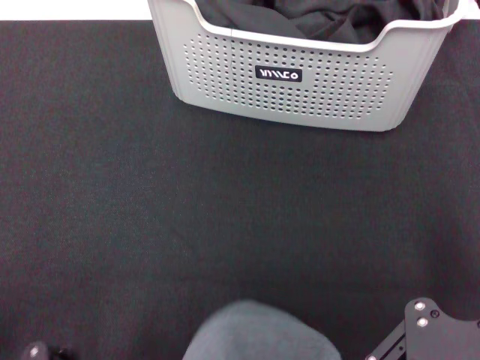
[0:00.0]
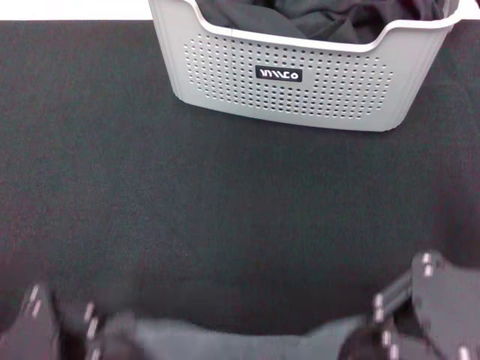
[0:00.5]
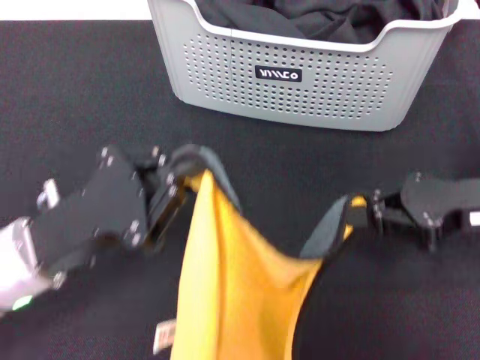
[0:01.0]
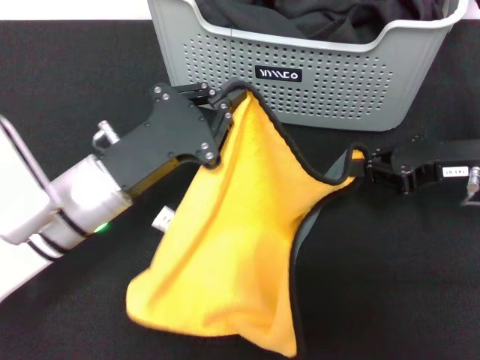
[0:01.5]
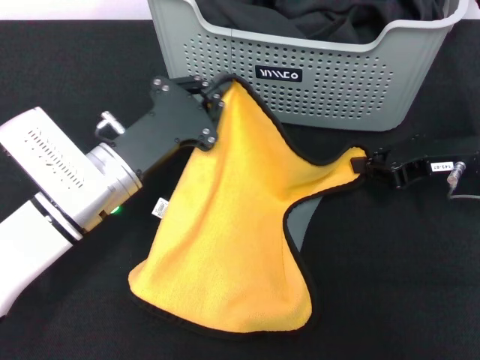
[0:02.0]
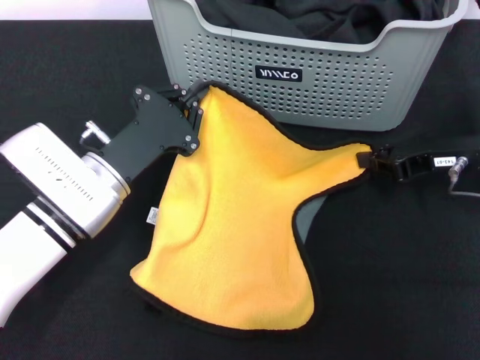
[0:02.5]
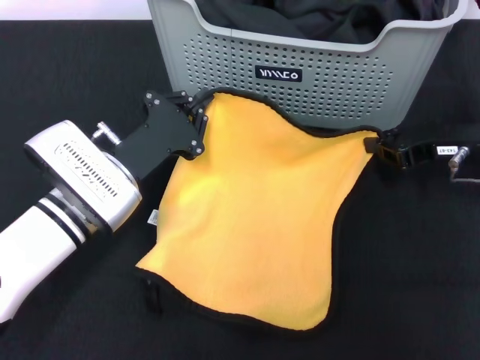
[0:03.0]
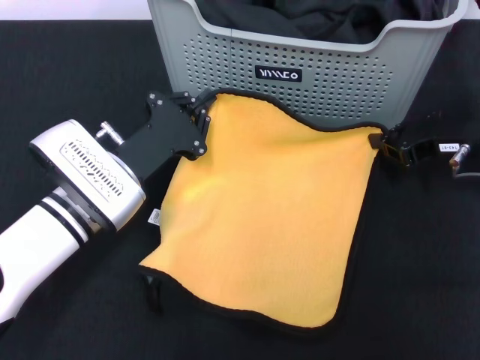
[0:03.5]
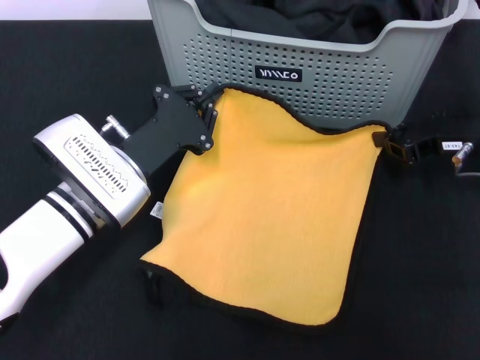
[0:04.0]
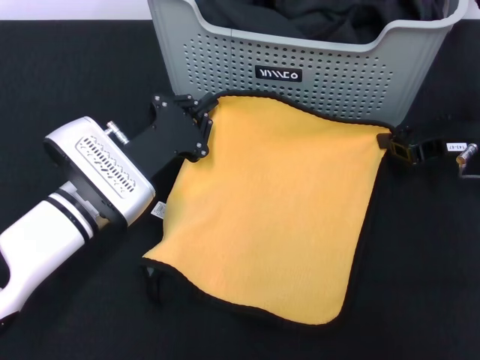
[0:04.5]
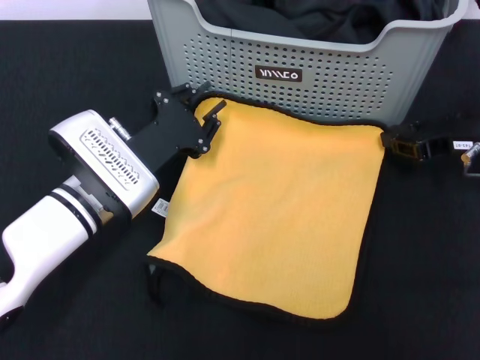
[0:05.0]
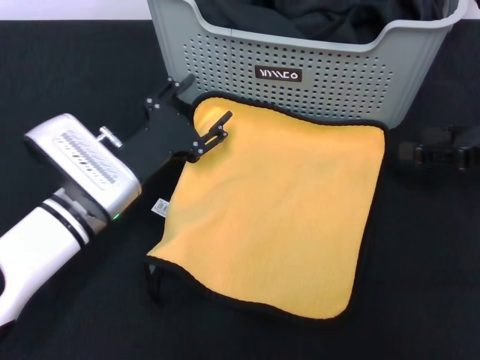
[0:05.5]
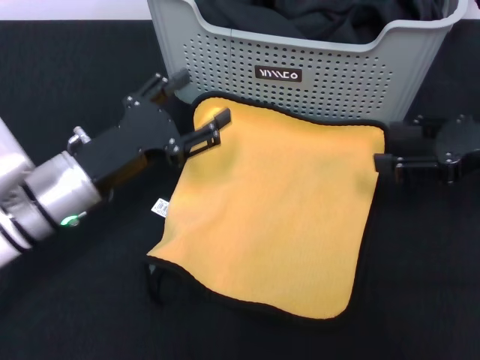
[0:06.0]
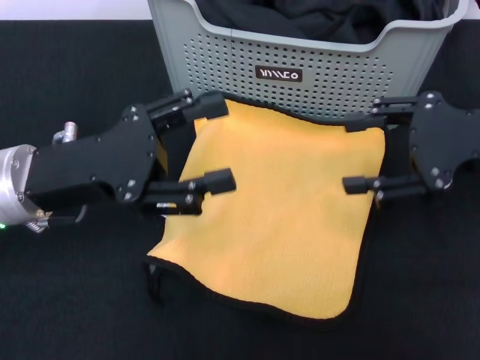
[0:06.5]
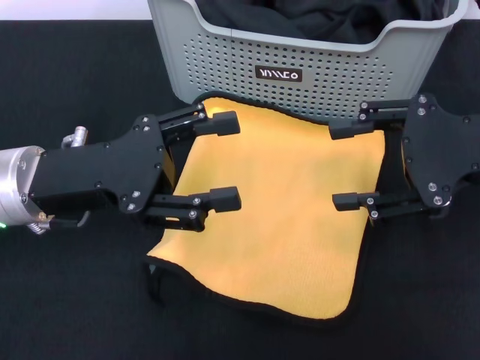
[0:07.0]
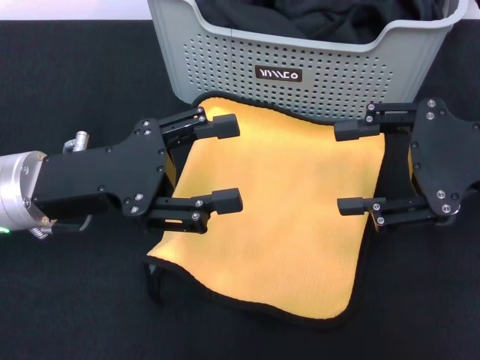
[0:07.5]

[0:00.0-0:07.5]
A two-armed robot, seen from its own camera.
Task of the whole recording: pick up the towel from the storage box and lay it flat on the black tablecloth.
Step, 0:00.0 to 0:05.0: Spread the towel flat with the right gripper.
0:00.0 to 0:02.0: The right gripper shifts roughly 20 cm forward and downward. Meanwhile the left gripper is displaced forward by about 20 cm.
0:04.0 to 0:05.5: The right gripper shifts approximately 5 cm to the right, and opens. The left gripper opens its fingers.
0:05.5 to 0:07.5: The left gripper shifts some 10 cm upward. Meanwhile the right gripper goes roughly 10 cm upward, to the left and backward.
